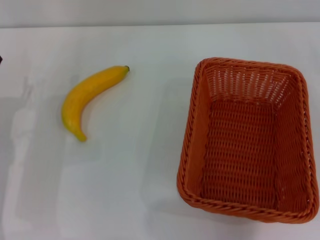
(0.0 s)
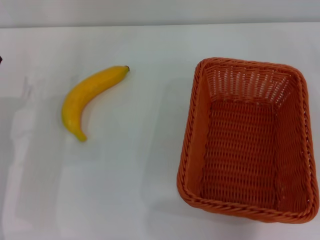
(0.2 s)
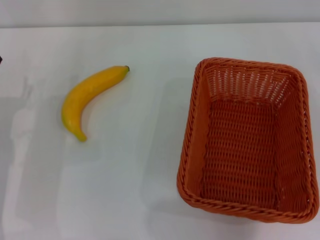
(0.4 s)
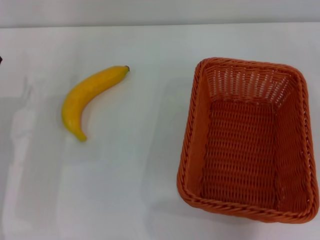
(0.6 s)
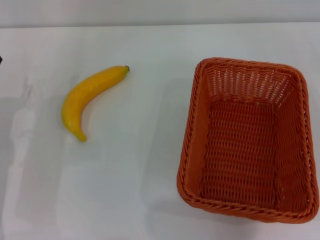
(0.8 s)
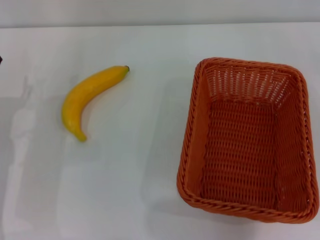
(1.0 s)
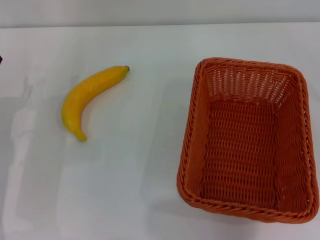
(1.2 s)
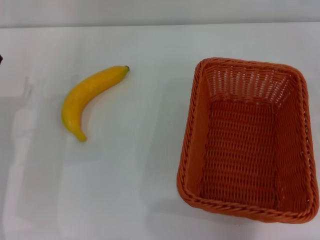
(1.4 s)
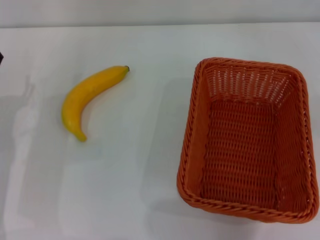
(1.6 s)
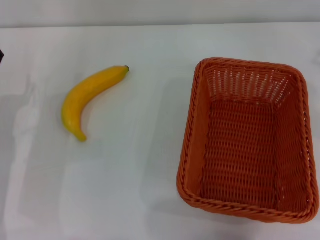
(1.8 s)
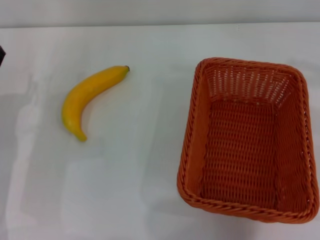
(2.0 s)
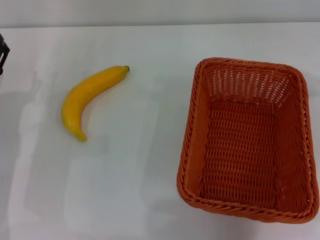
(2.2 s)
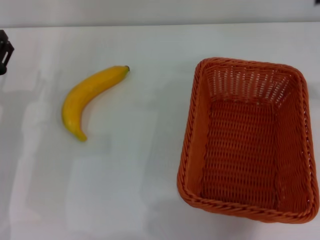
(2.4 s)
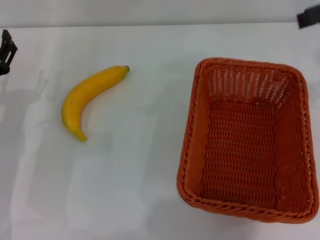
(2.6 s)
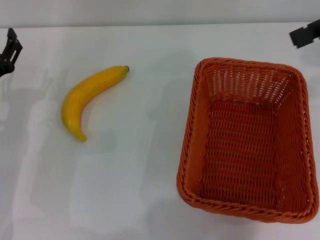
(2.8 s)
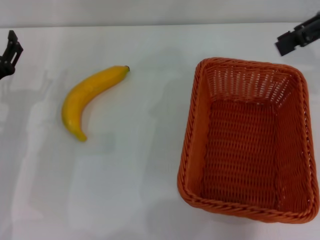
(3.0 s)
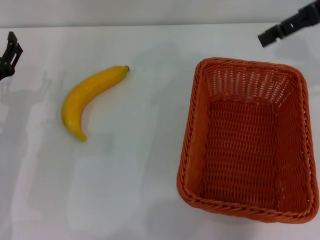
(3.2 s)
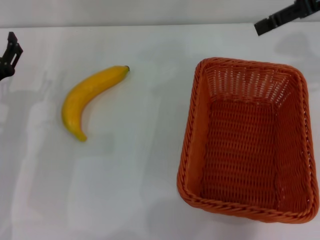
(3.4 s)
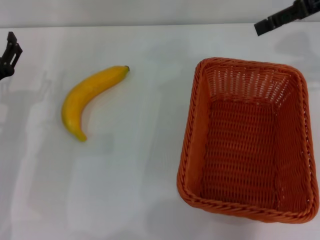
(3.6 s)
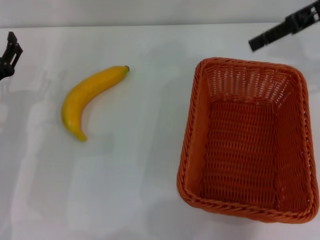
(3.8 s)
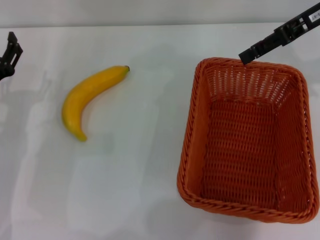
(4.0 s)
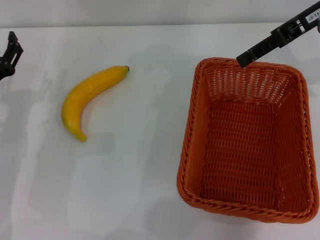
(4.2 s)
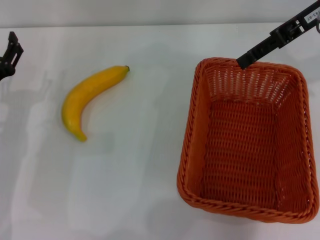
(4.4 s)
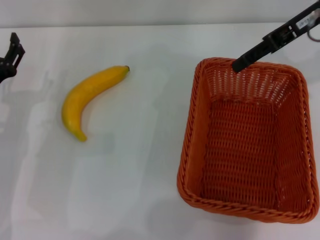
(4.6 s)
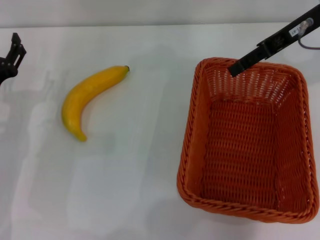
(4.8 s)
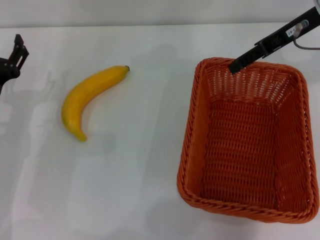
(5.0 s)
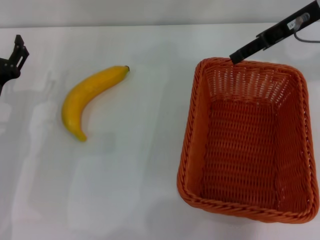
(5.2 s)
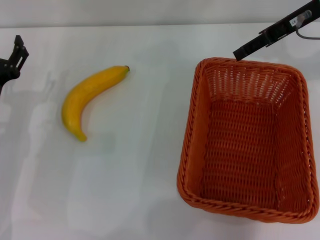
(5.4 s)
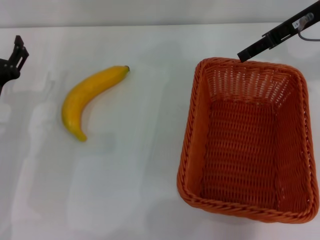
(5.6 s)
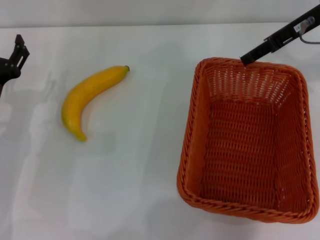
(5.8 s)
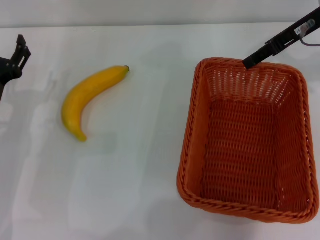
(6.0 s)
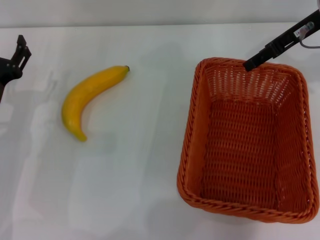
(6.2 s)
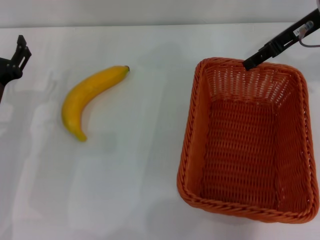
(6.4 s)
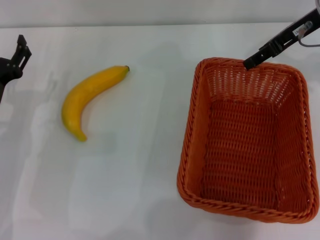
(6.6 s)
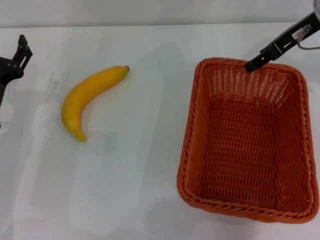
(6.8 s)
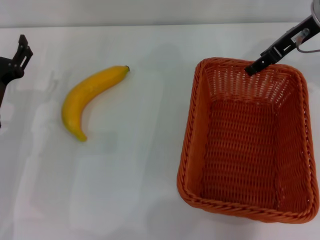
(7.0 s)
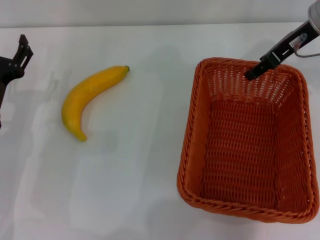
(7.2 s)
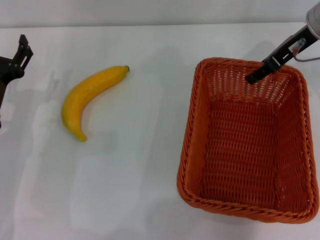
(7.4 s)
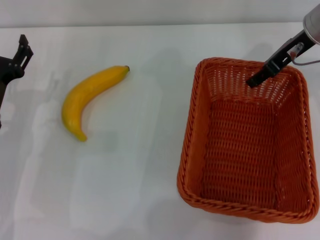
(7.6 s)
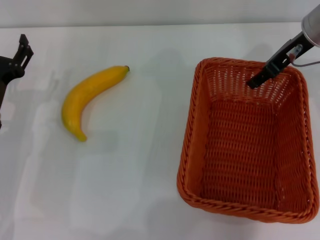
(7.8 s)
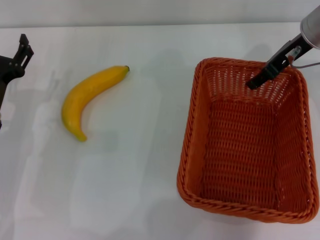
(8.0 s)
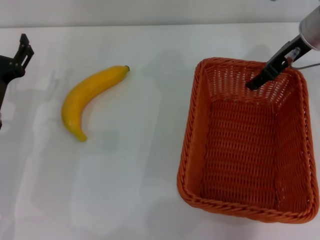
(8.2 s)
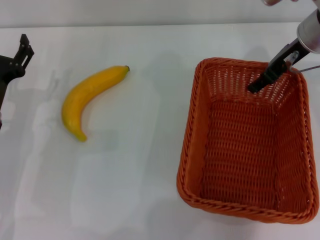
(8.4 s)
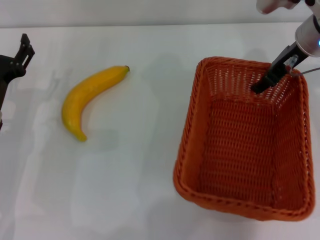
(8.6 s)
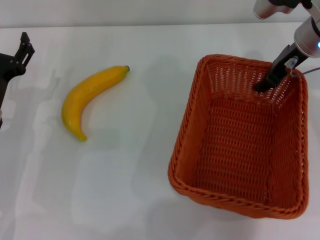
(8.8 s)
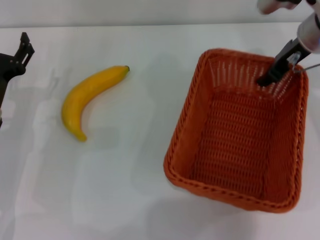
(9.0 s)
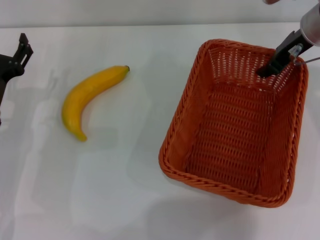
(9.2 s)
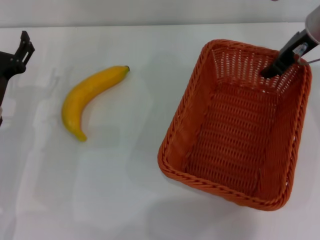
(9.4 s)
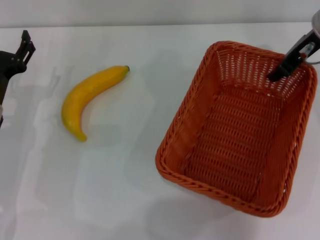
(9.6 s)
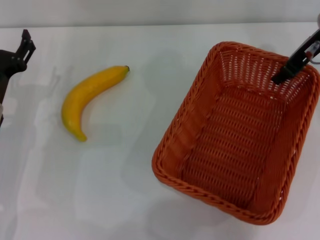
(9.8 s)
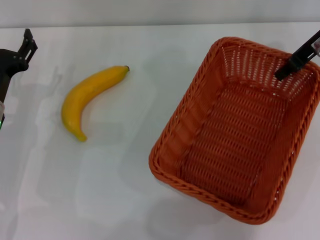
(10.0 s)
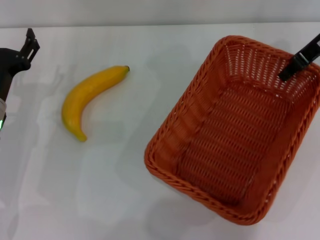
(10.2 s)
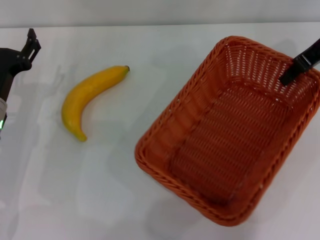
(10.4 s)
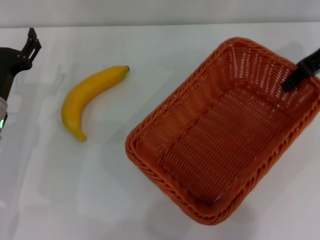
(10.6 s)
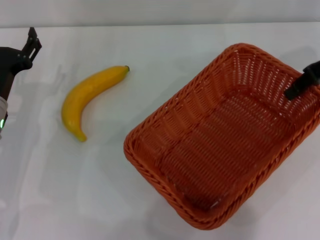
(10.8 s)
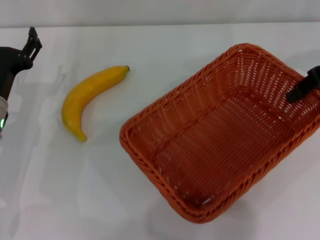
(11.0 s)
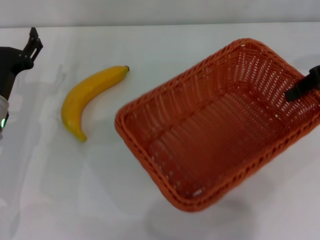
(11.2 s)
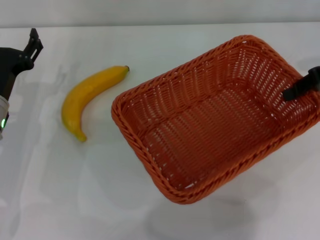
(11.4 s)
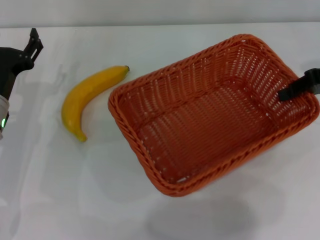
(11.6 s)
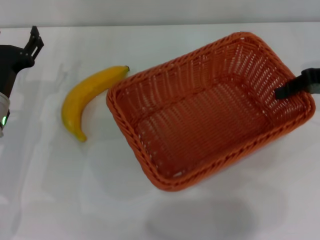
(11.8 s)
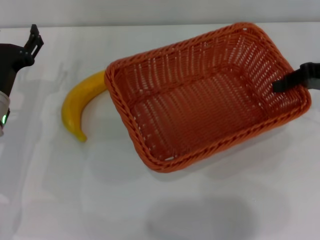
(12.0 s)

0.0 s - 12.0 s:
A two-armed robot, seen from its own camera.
Step, 0.0 s - 10.4 s: Pick up the dark basket with the right gripper.
1.6 s - 3.0 s: The right gripper shifts some 20 cm to the left, upward and forward.
3.0 s - 4.4 s: The right gripper moves to the left, about 5 cm.
4.4 s - 6.0 s: The grippers stay close to where they were, moving slightly.
6.0 s - 7.6 s: The grippers make only small movements.
7.6 s - 9.0 s: The grippers make only small movements.
9.0 s - 10.4 s: The right gripper ends up about 5 cm from where it was.
10.4 s - 12.0 s: The right gripper is displaced downward and to the right by some 10 cm.

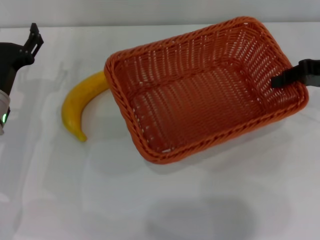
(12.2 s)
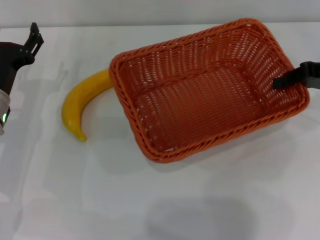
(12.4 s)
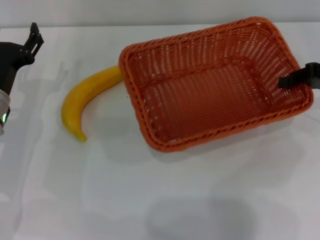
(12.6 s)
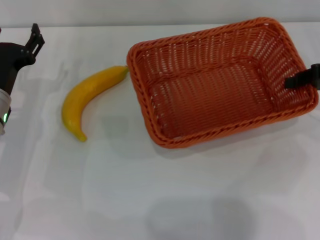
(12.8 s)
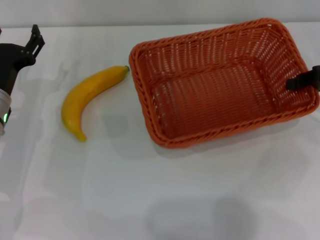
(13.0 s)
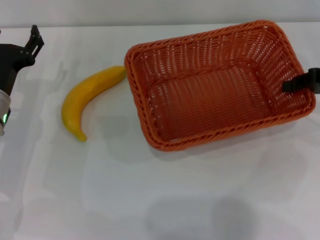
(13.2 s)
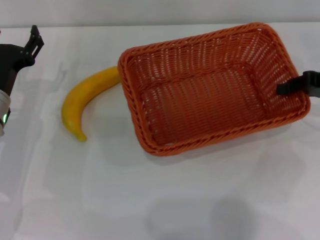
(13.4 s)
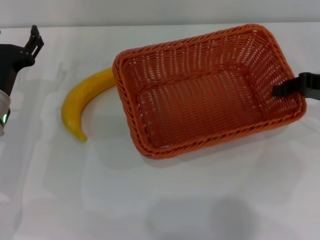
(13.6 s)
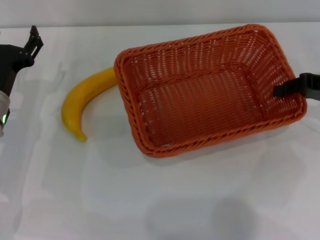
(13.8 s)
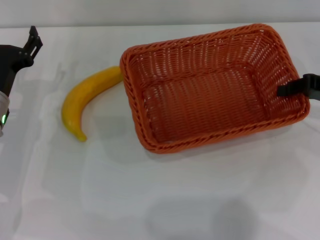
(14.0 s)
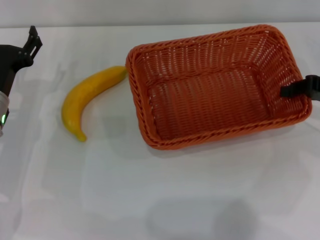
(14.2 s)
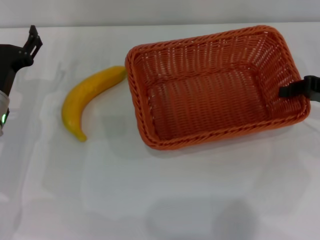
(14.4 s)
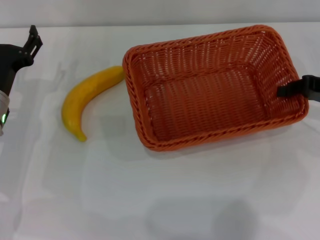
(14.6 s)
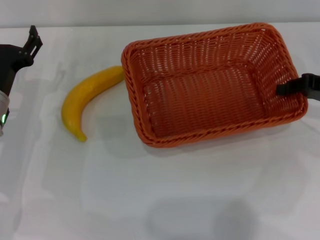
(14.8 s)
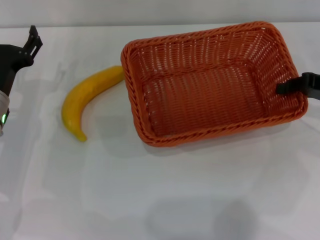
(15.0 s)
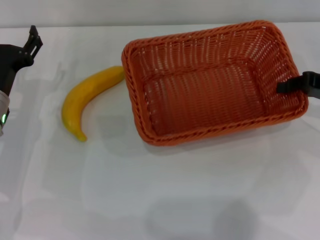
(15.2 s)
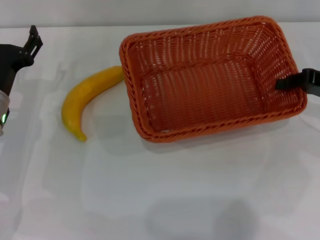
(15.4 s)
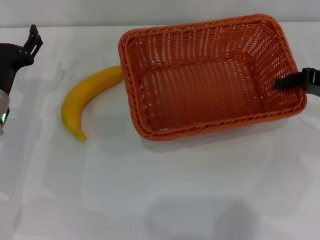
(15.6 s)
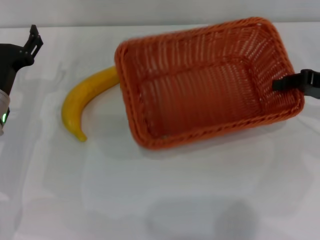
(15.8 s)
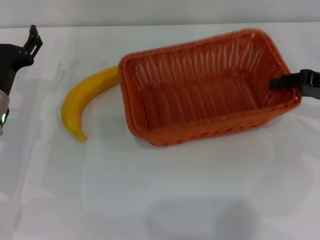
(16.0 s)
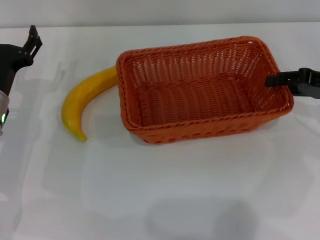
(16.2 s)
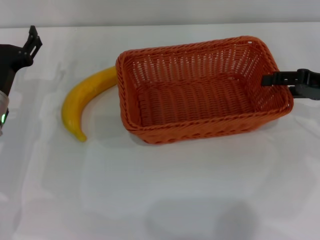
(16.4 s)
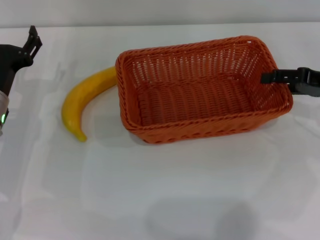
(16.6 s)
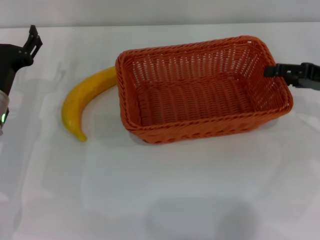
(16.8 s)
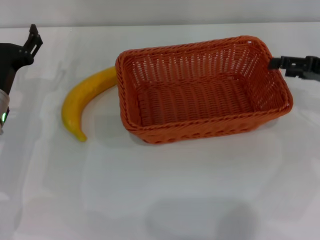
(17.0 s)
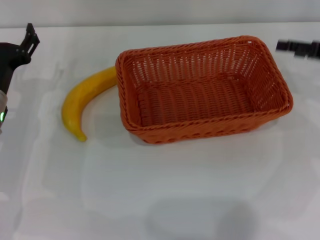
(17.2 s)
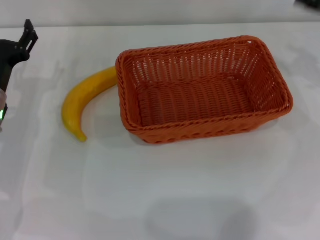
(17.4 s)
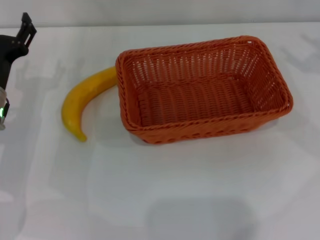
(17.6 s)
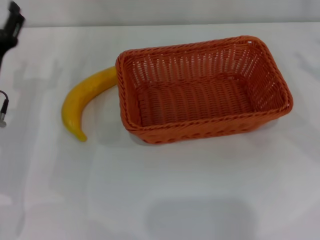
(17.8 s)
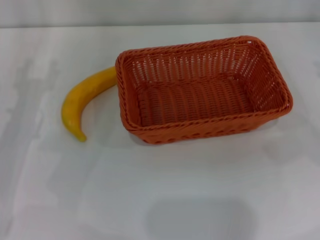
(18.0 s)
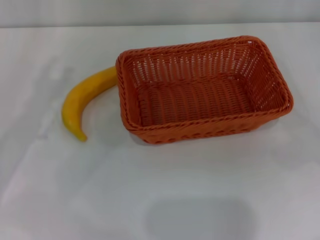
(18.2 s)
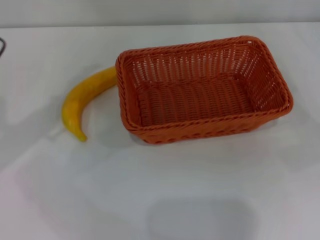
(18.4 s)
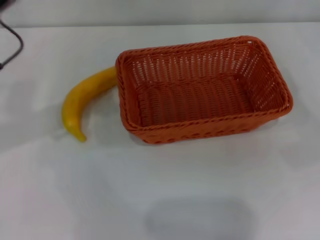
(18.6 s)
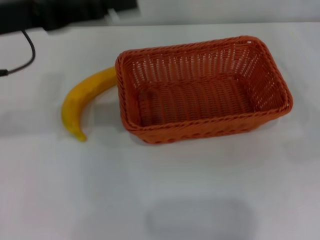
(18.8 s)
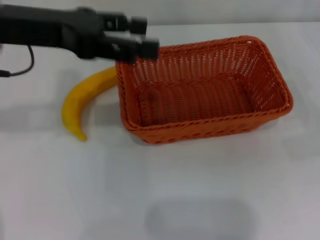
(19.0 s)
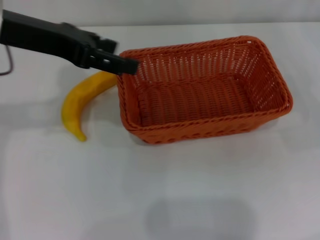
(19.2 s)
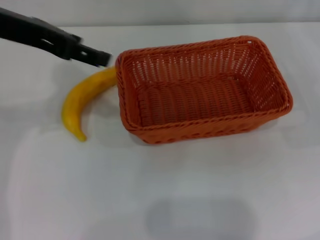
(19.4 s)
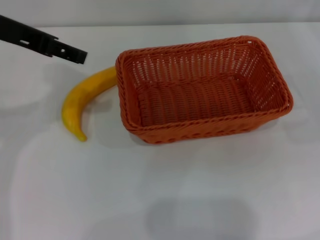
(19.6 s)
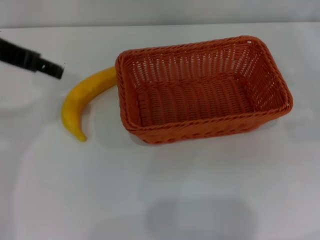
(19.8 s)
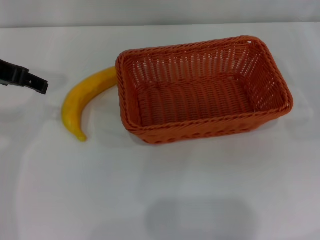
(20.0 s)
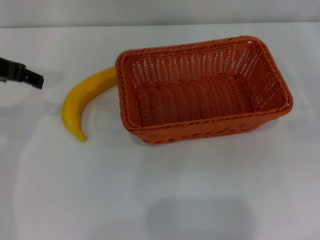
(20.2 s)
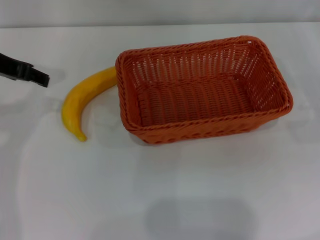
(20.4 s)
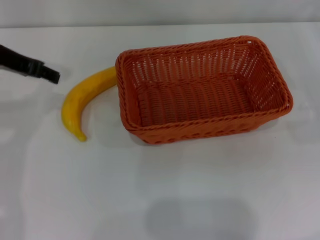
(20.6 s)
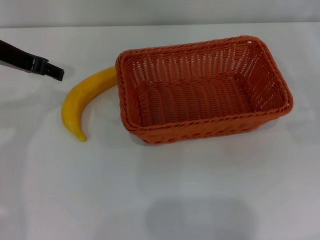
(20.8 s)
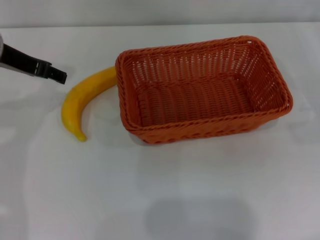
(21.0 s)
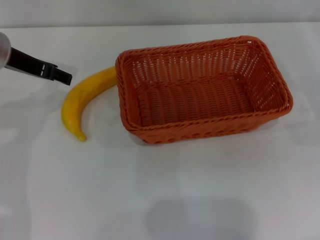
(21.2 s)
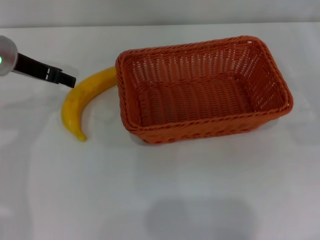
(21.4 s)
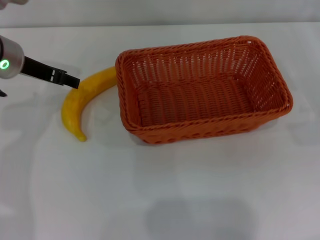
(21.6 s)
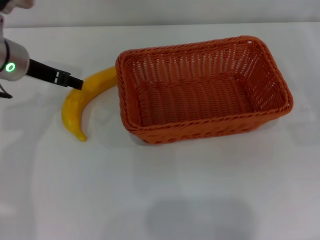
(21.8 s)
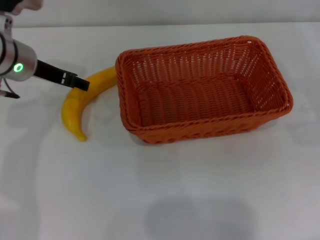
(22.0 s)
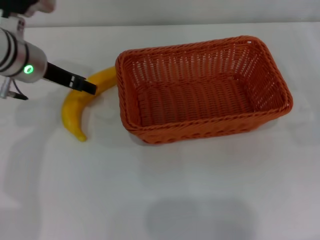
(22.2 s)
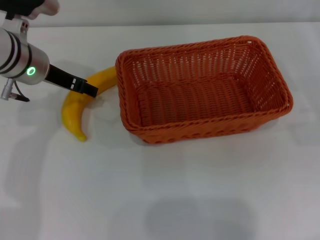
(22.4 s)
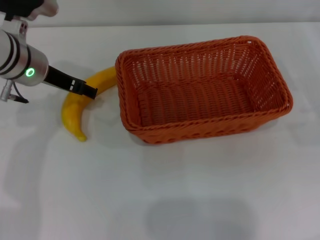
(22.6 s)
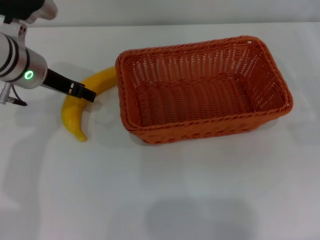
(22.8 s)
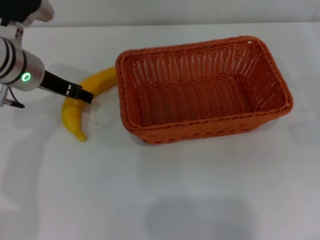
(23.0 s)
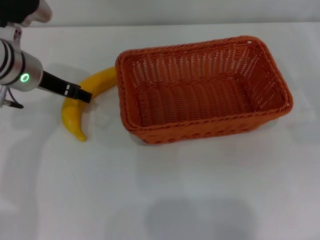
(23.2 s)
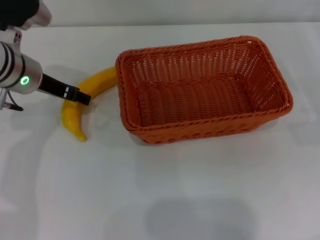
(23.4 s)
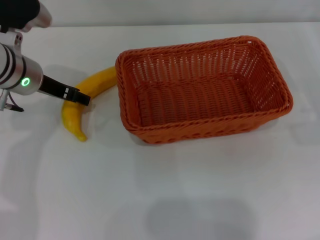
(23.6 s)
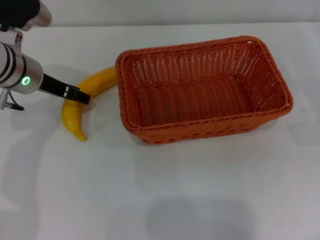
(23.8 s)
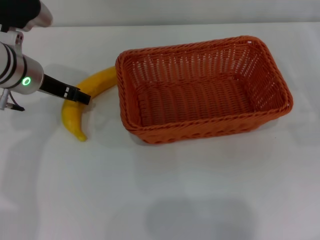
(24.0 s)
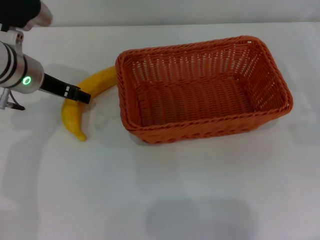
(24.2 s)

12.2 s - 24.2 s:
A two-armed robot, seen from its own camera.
Step, 12.2 s - 16.8 s: Place the dark basket in the center of view with the right gripper.
12.2 s - 13.8 s: The grippers make only small movements.
13.8 s - 15.2 s: The two grippers keep their place.
15.2 s - 16.6 s: The right gripper opens.
16.6 s - 18.2 s: The right gripper moves to the right and backward, approximately 10 cm. The left gripper travels upward by roughly 10 cm.
18.2 s - 19.8 s: The left gripper goes roughly 15 cm upward.
19.8 s - 21.2 s: The left gripper travels downward by about 10 cm.
21.2 s - 22.6 s: The left gripper ends up roughly 5 cm from where it was.
22.6 s - 24.2 s: The grippers move only a little.
